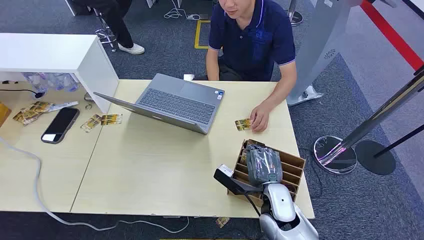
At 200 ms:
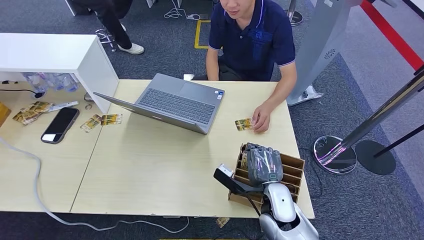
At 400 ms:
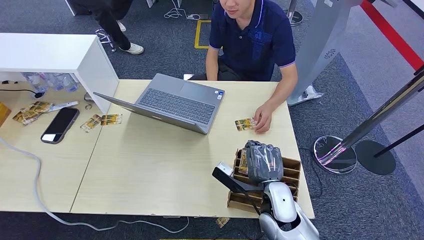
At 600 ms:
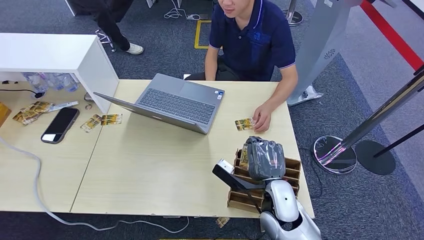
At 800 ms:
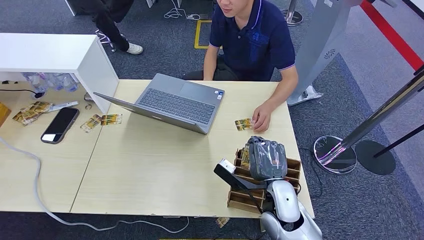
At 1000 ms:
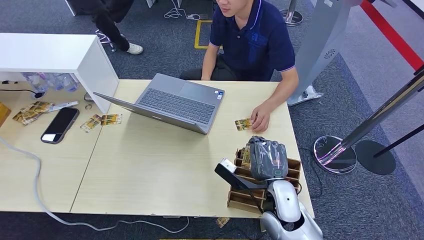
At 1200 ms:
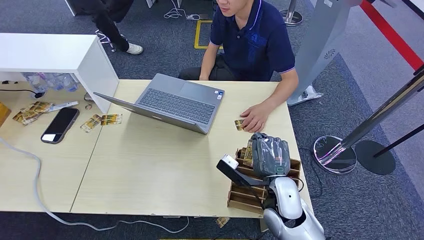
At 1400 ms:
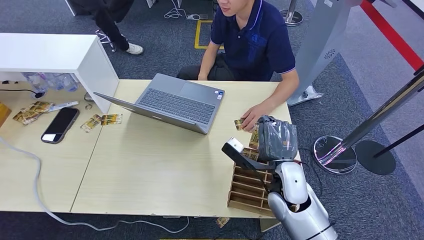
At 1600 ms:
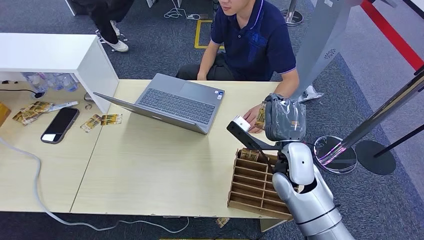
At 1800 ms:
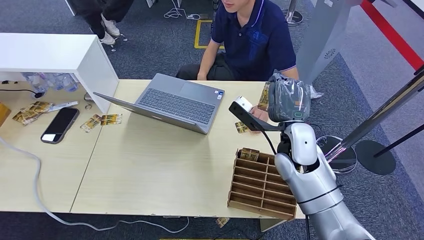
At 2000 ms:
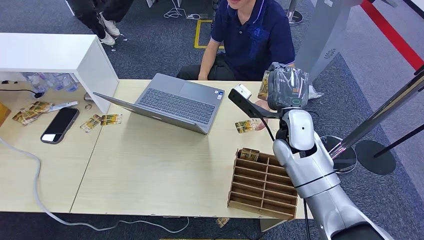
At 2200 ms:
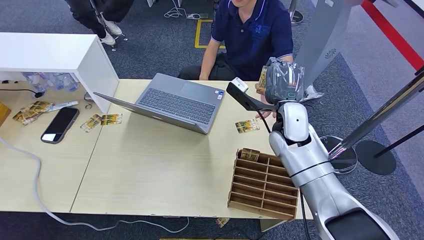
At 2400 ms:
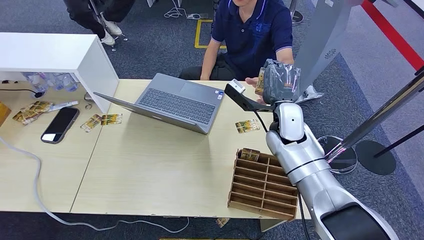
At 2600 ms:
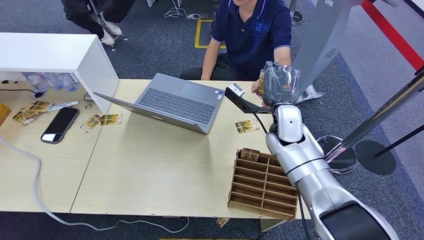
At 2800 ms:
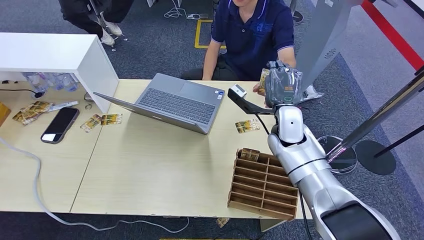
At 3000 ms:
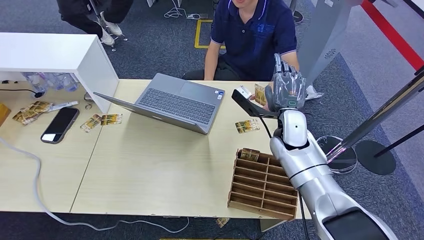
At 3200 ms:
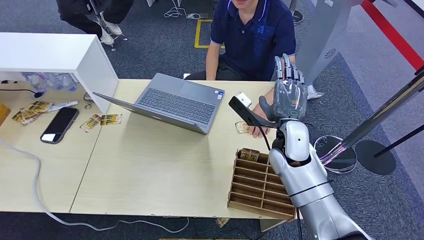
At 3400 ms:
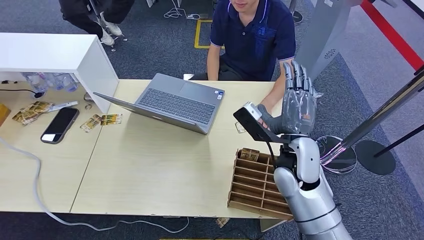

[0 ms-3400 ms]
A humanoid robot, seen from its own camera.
Step, 0 ms to 1400 ms: Pick up the key card from the card box.
Step, 1800 ms to 3400 ms: Hand the key card to the target.
1600 ms to 3400 ms: The right hand travels forward and back again, roughly 10 cm each way.
